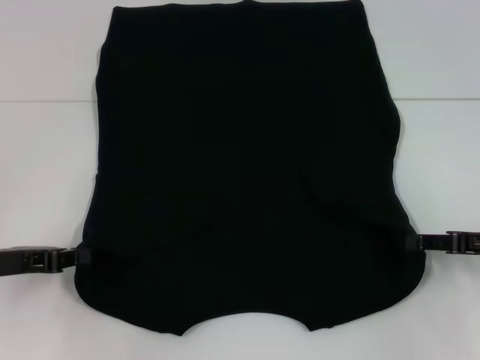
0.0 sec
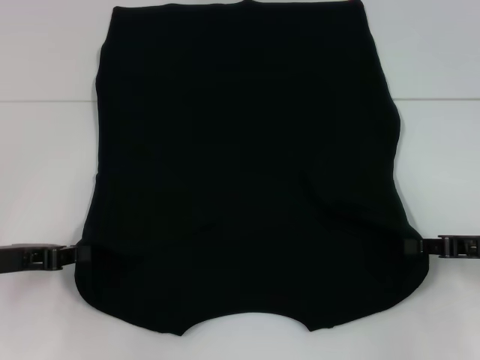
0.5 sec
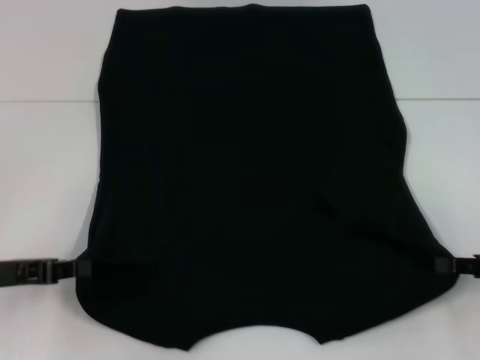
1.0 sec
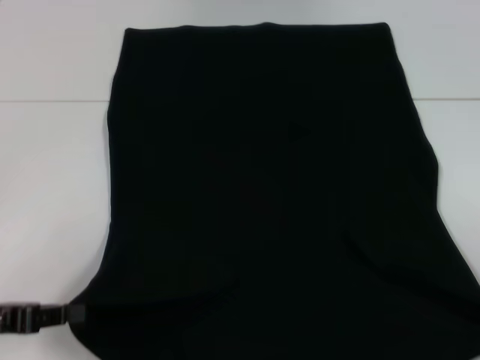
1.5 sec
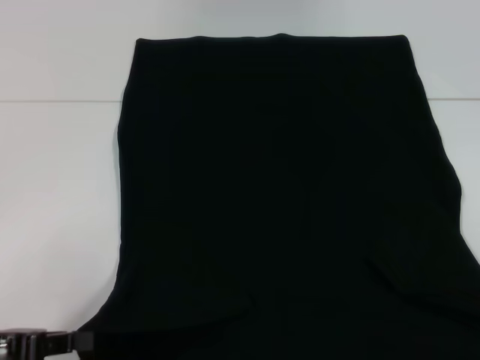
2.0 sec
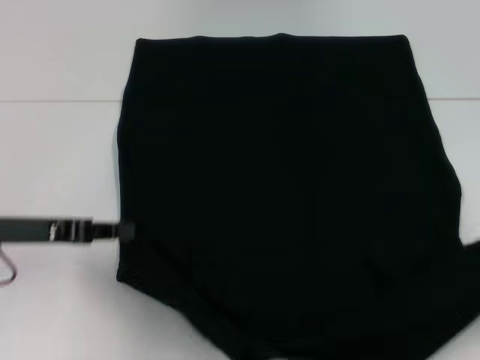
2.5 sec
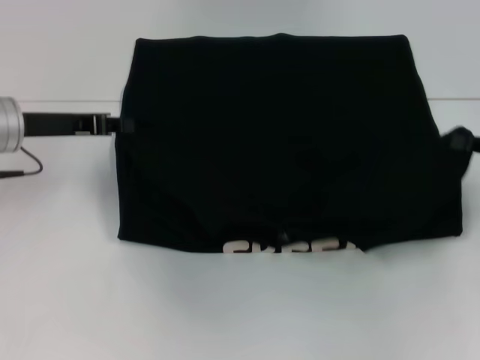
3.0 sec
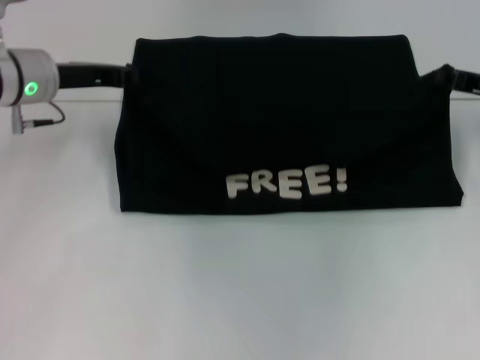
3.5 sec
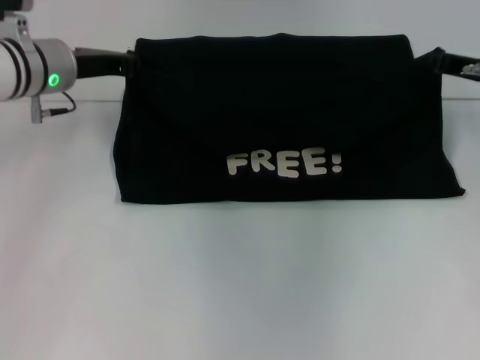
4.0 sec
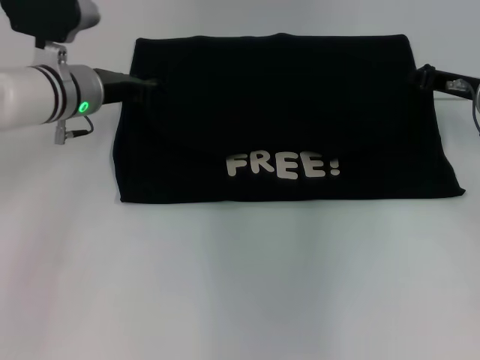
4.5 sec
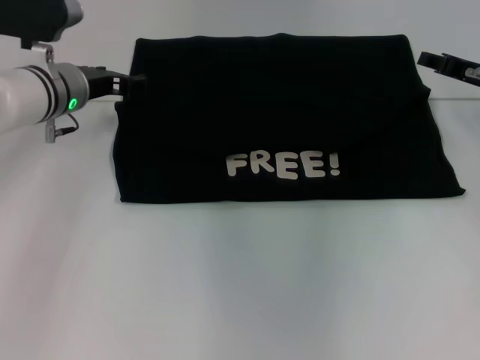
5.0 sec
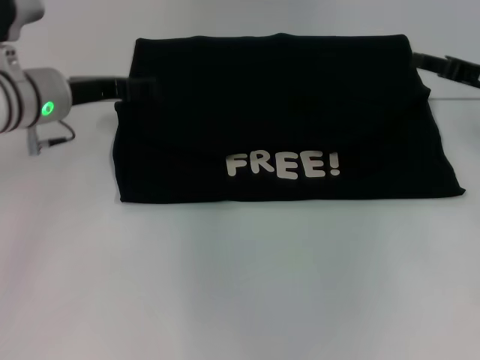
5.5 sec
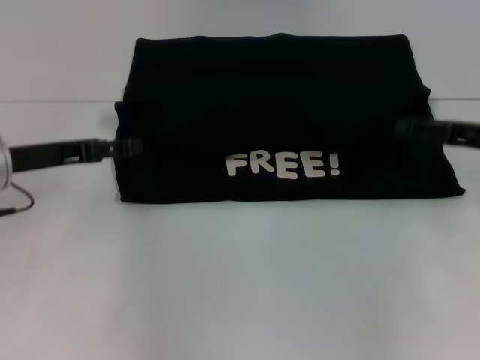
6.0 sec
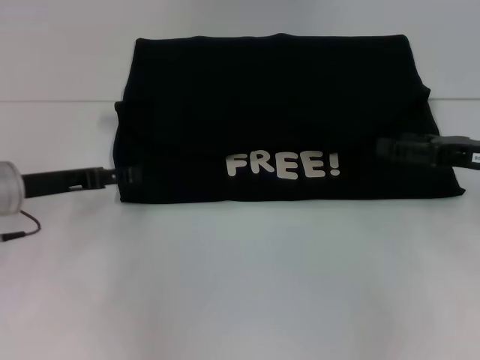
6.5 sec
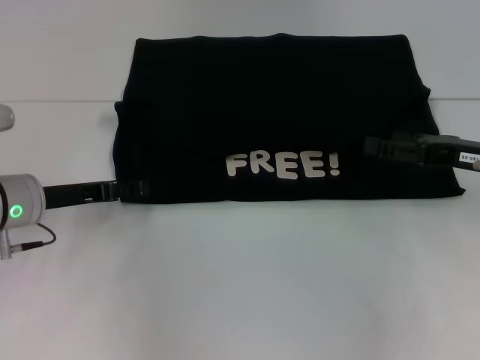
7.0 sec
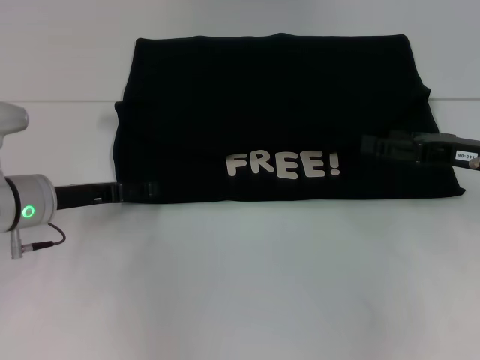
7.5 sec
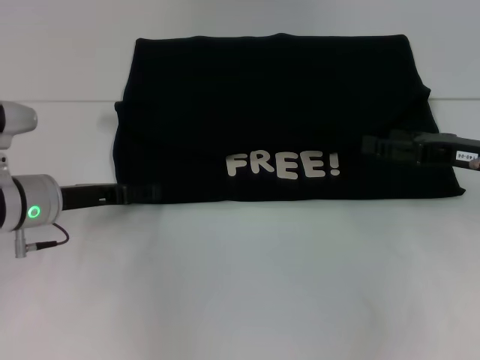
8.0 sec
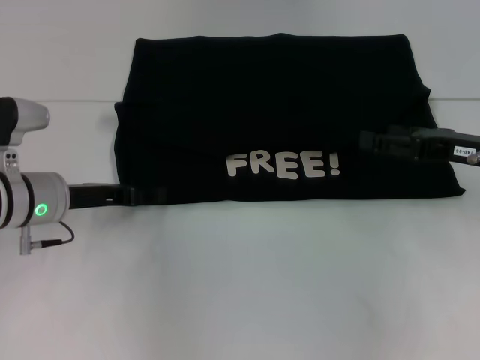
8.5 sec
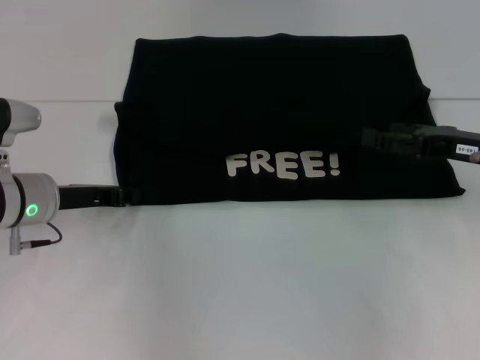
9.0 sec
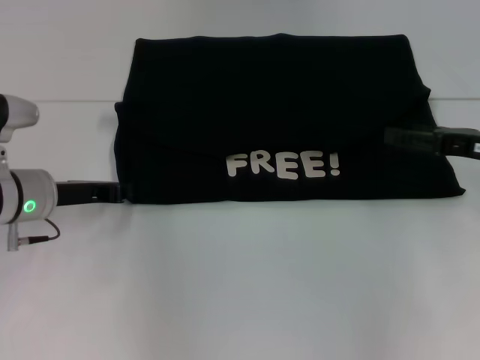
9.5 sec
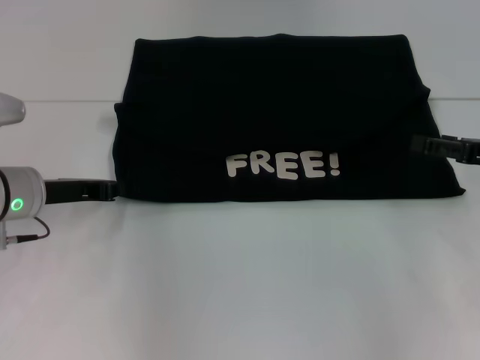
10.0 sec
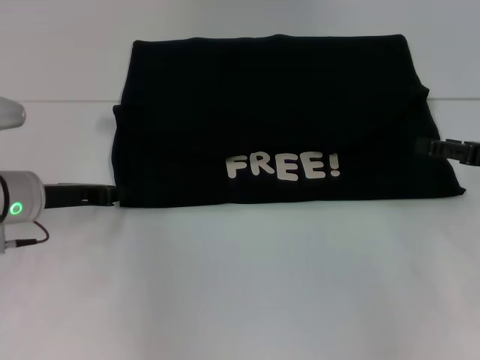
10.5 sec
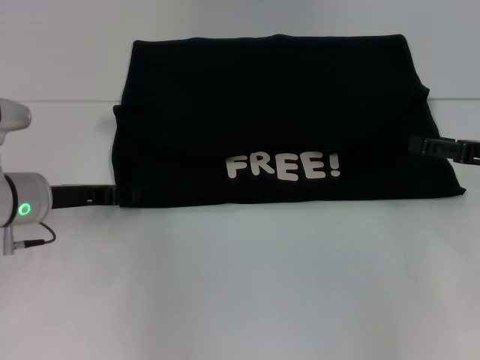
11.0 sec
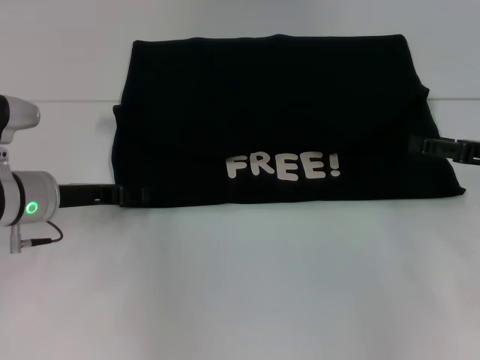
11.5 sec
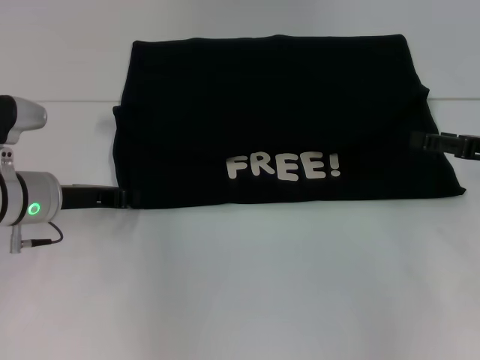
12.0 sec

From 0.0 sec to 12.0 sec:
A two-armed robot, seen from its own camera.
Step, from 1.0 sec to 5.0 sec: Fold the clothes with your left hand.
Step, from 1.0 sec to 5.0 sec: Fold the clothes with your right hand.
From 0.0 sec to 2.0 sec: The right gripper travels backward and to the right by roughly 15 cm, and closes; the left gripper heads backward, covering approximately 5 cm.
From 2.0 sec to 4.0 sec: The left gripper moves forward, some 25 cm. The right gripper shifts some 30 cm forward and to the left.
From 4.0 sec to 6.0 sec: The right gripper shifts approximately 10 cm backward, and opens up. Meanwhile the left gripper travels backward and to the left by about 10 cm, and opens.
From 6.0 sec to 8.0 sec: The left gripper is displaced downward by some 5 cm.
From 8.0 sec to 10.0 sec: The left gripper closes its fingers.
From 10.0 sec to 12.0 sec: The grippers move only a little.

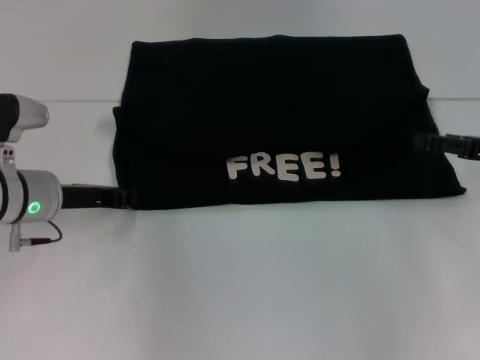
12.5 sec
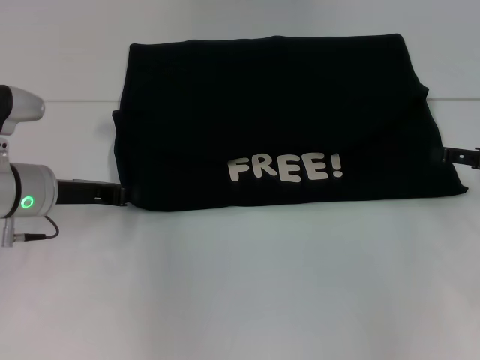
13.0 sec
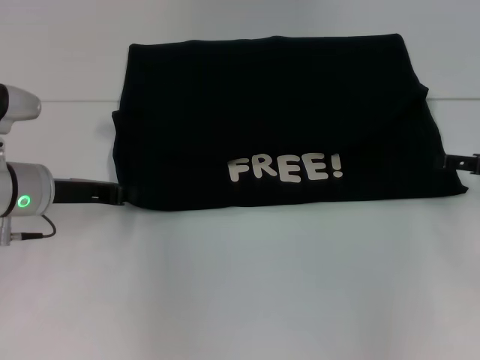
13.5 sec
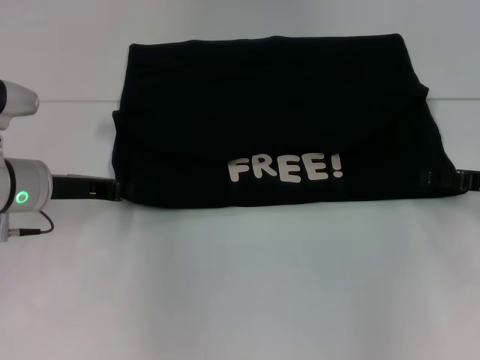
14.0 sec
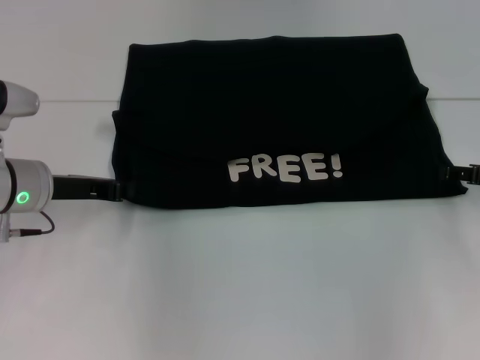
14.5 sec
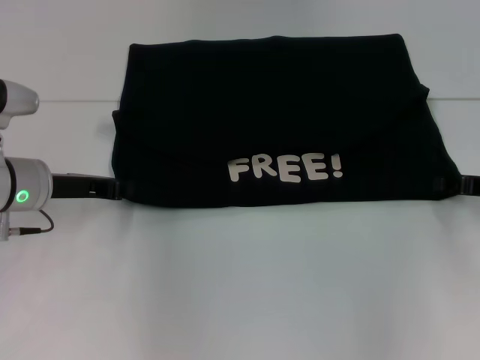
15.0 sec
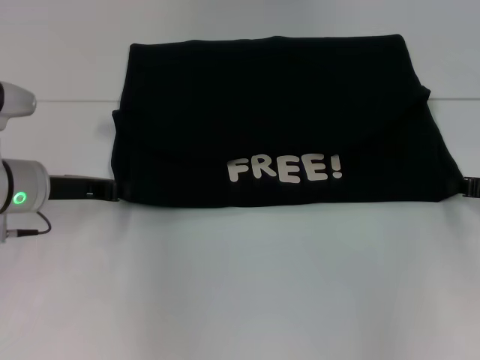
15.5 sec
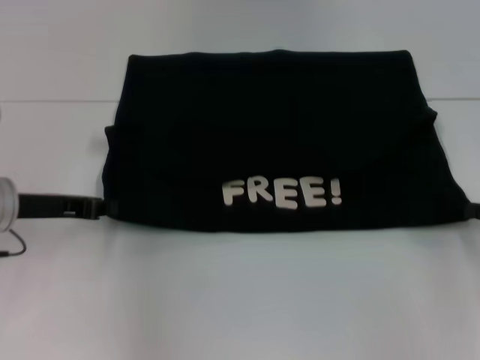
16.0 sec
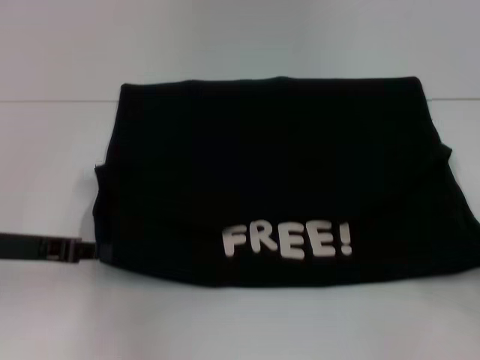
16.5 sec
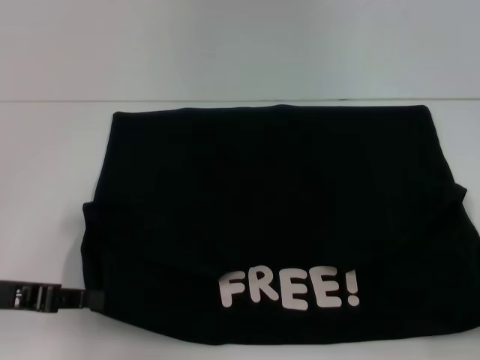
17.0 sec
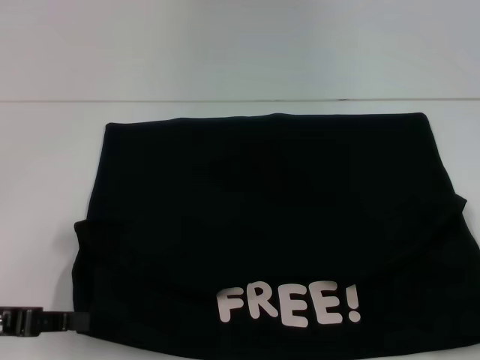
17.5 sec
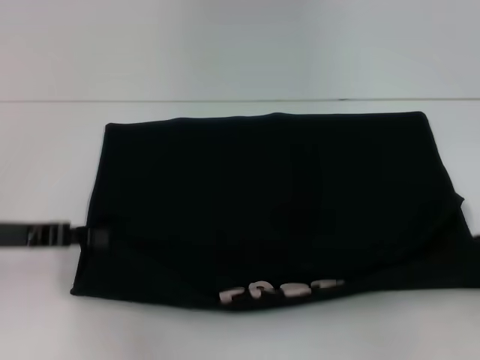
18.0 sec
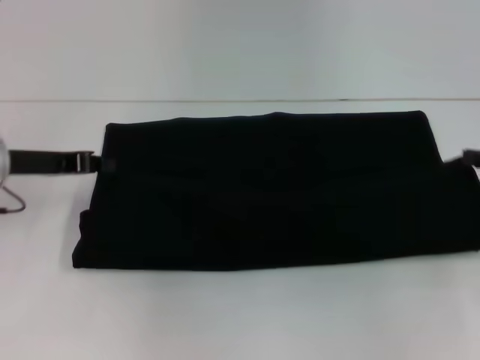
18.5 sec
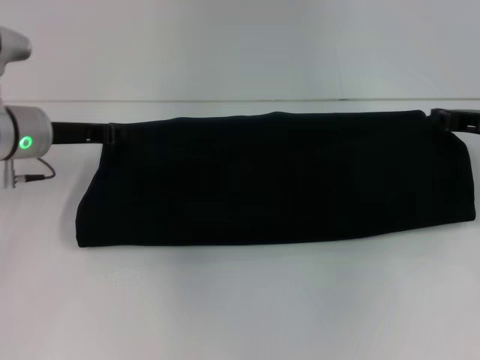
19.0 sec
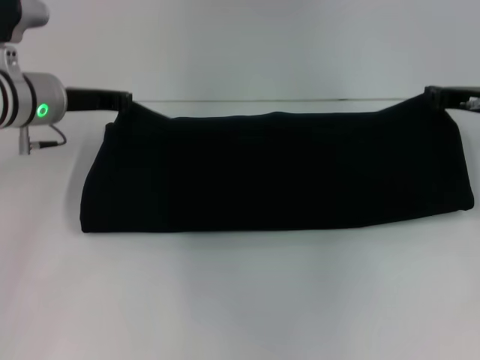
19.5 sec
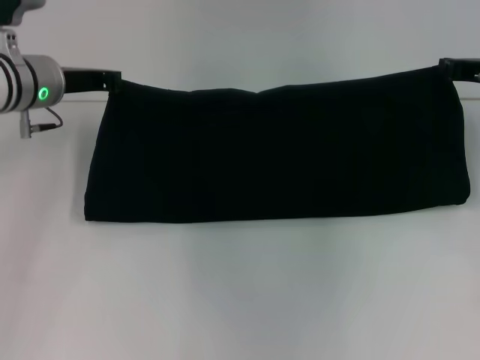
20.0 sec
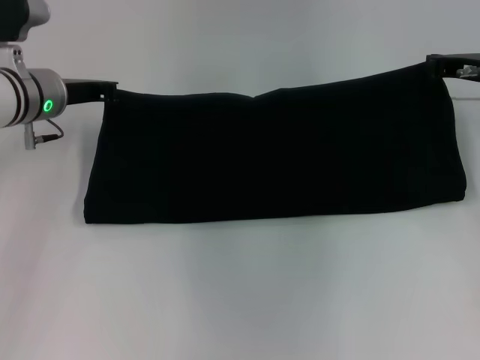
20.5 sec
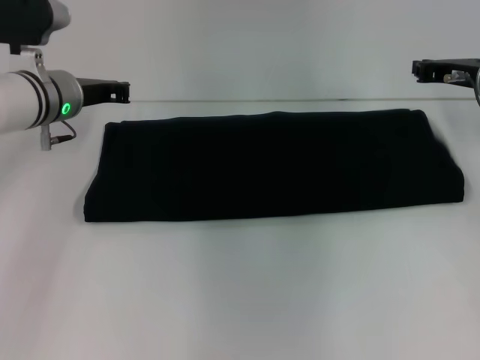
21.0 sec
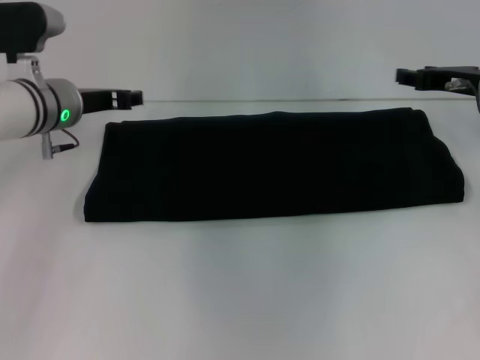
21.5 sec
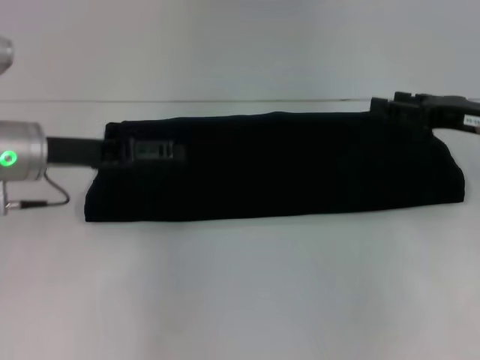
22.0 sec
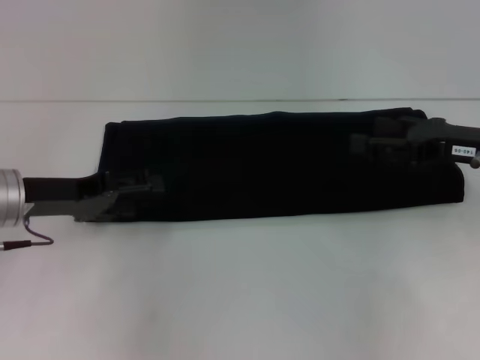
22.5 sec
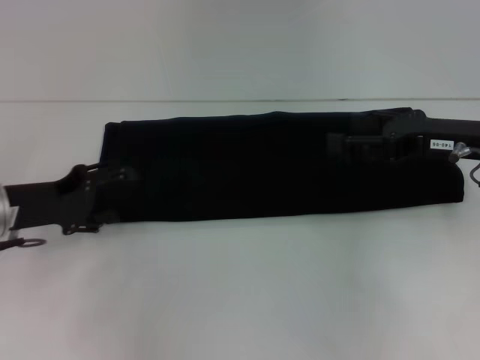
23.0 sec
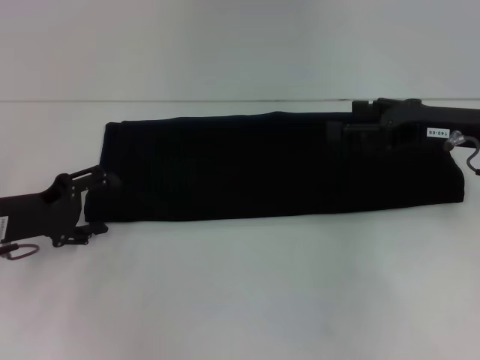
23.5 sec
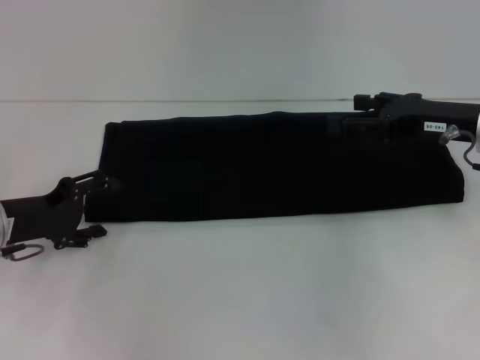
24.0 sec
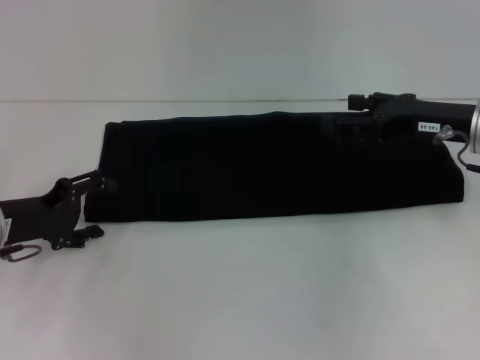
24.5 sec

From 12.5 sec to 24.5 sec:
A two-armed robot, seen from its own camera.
Step, from 12.5 sec to 17.0 sec: Pull the clothes with your left hand.
Step, from 12.5 sec to 17.0 sec: Pull the clothes with your right hand.
Step, from 17.5 sec to 21.5 sec: Fold the clothes with your right hand.
From 12.5 sec to 14.5 sec: The grippers move only a little.
From 14.5 sec to 16.5 sec: The grippers both shift backward by approximately 10 cm. The right gripper closes up.
From 16.5 sec to 18.5 sec: The grippers both shift forward by some 10 cm.
From 18.5 sec to 20.5 sec: The left gripper travels forward and to the right by about 10 cm; the right gripper is displaced forward and to the left by about 15 cm.
From 20.5 sec to 22.5 sec: Both grippers travel together backward, some 10 cm. The left gripper opens its fingers; the right gripper opens.
From 22.5 sec to 24.5 sec: The left gripper changes place by some 5 cm.

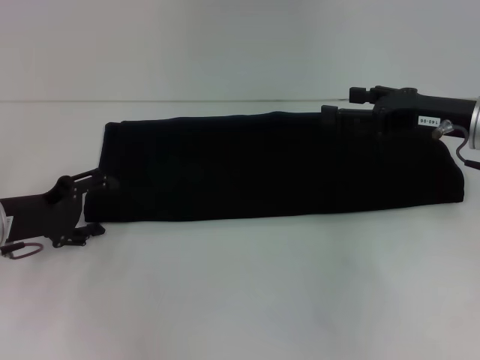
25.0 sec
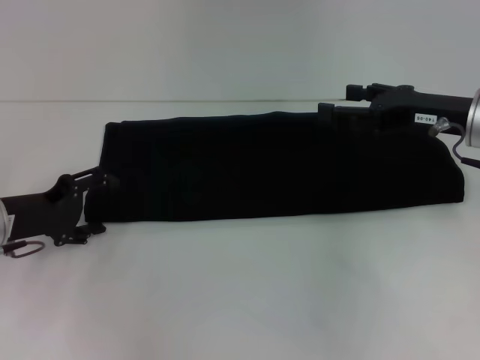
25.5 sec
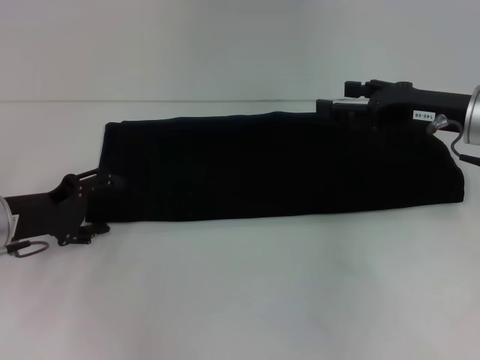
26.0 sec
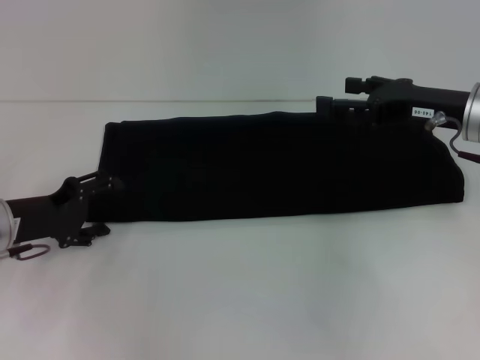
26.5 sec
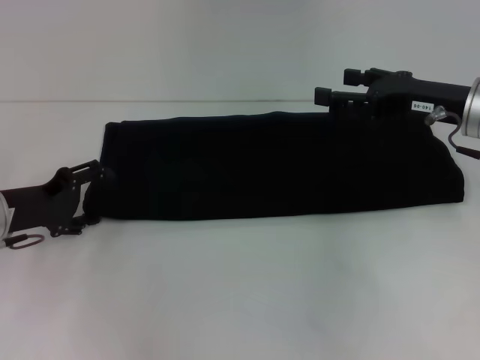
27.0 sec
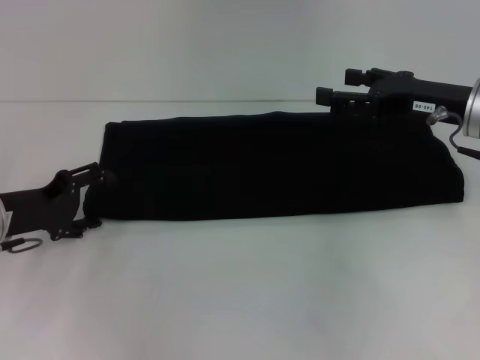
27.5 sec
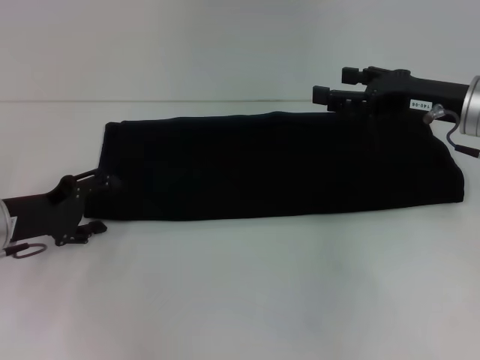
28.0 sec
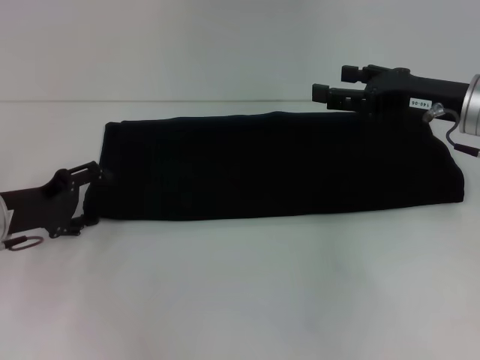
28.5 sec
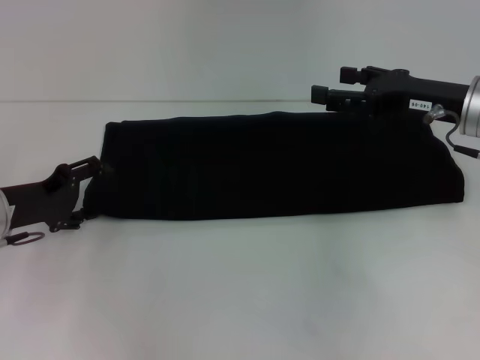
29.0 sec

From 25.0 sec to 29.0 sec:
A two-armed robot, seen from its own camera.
From 25.0 sec to 27.0 sec: The two grippers keep their place.
From 27.0 sec to 29.0 sec: The two grippers keep their place.
